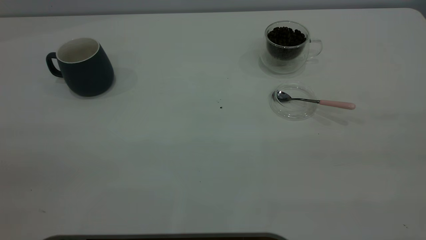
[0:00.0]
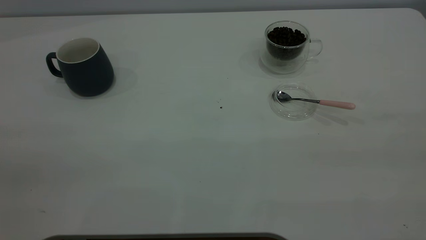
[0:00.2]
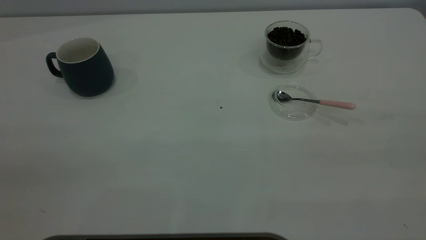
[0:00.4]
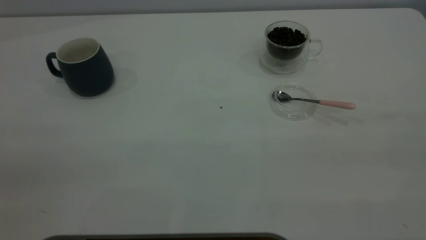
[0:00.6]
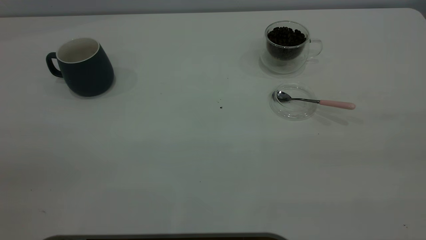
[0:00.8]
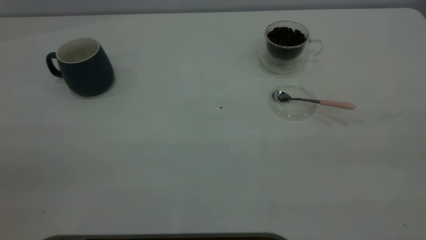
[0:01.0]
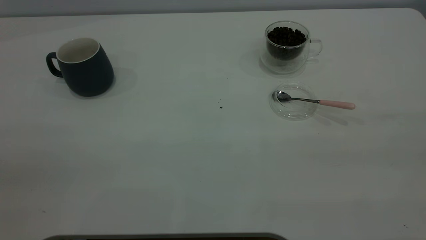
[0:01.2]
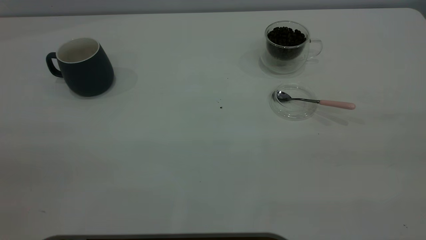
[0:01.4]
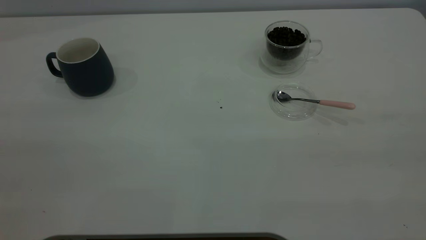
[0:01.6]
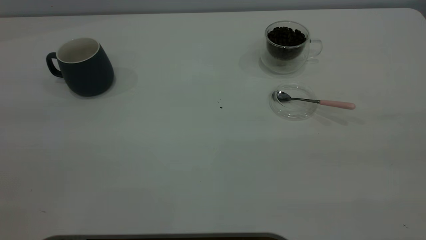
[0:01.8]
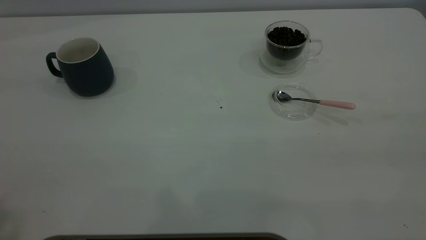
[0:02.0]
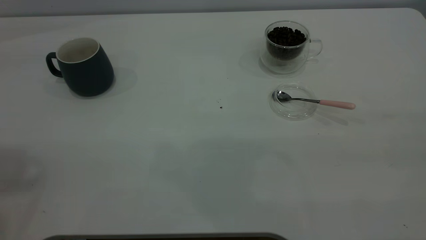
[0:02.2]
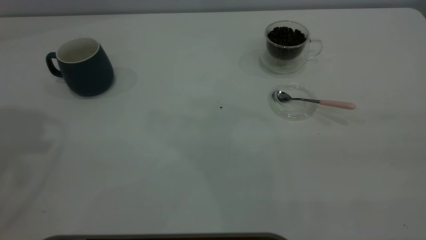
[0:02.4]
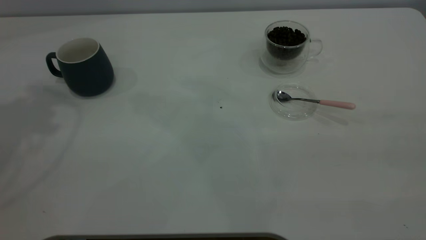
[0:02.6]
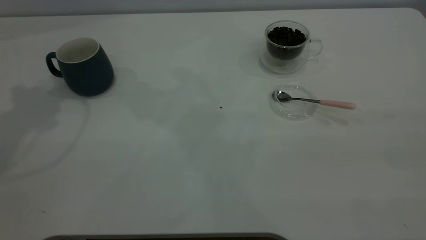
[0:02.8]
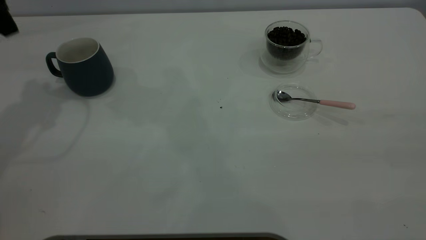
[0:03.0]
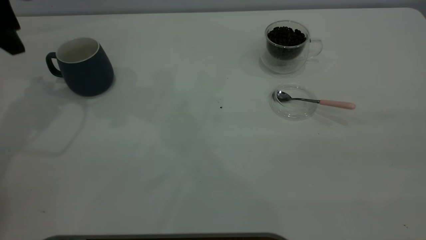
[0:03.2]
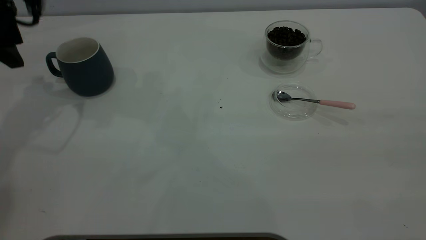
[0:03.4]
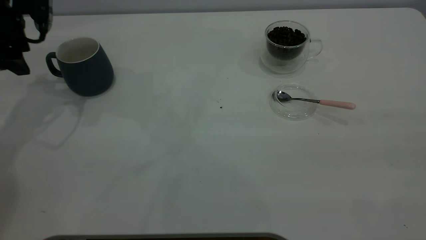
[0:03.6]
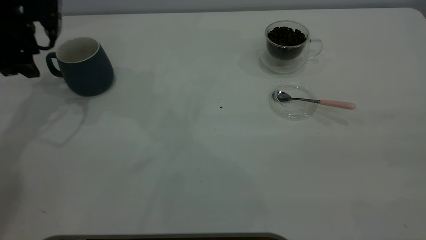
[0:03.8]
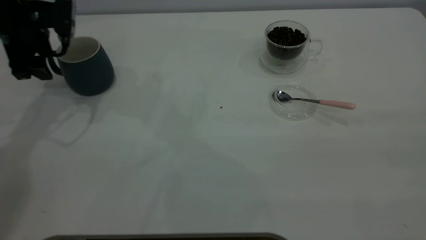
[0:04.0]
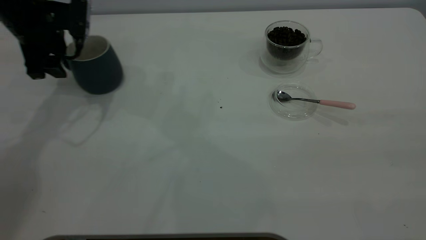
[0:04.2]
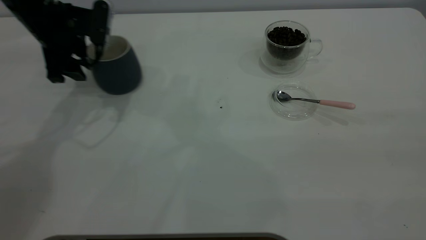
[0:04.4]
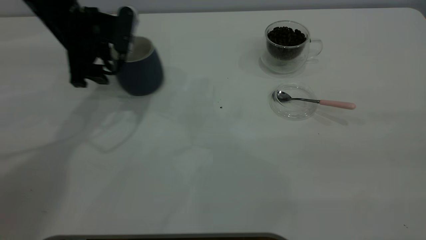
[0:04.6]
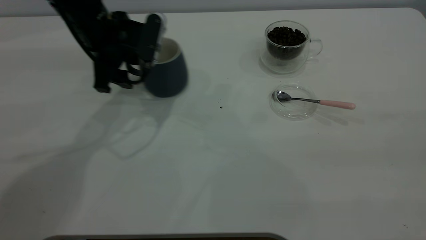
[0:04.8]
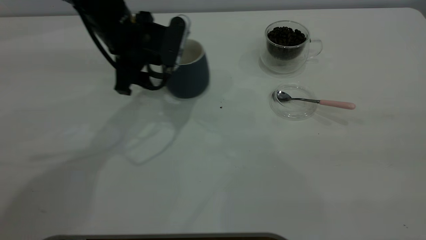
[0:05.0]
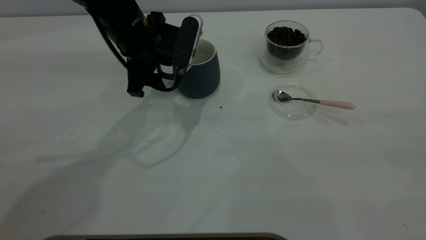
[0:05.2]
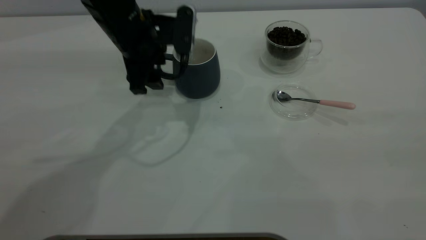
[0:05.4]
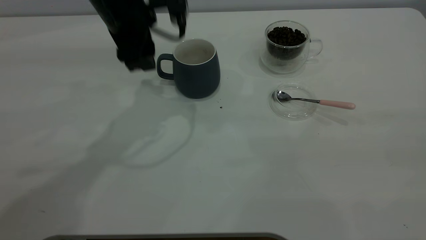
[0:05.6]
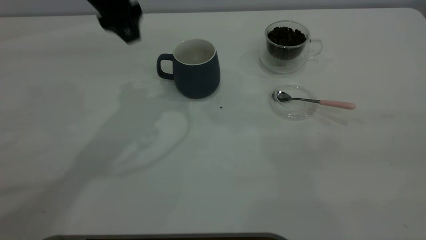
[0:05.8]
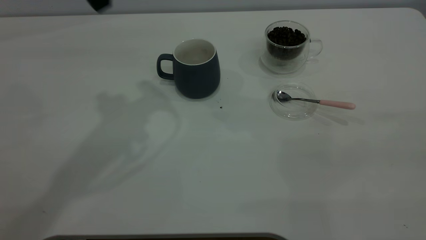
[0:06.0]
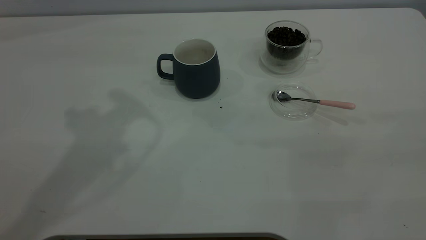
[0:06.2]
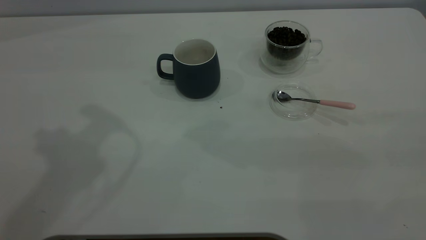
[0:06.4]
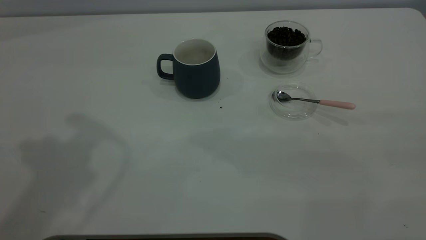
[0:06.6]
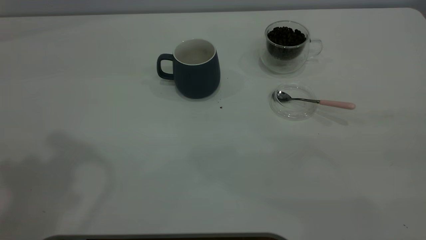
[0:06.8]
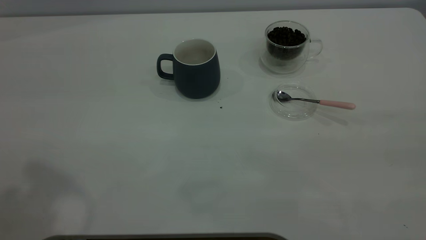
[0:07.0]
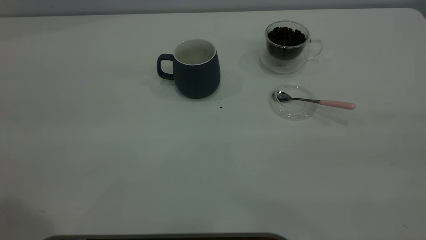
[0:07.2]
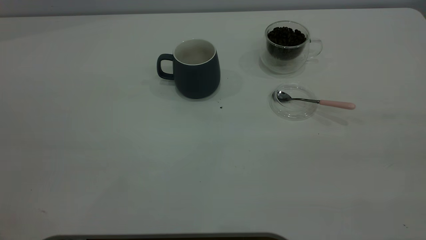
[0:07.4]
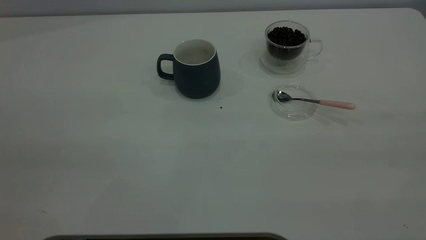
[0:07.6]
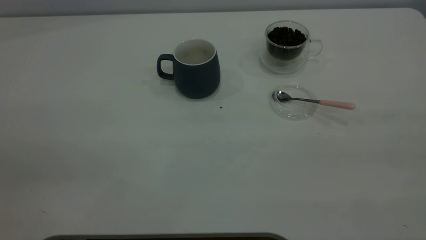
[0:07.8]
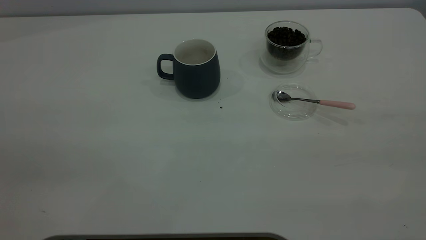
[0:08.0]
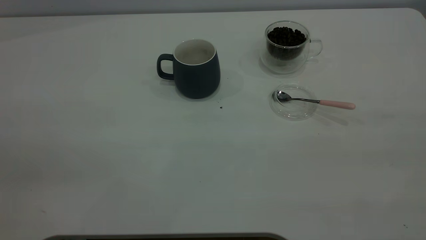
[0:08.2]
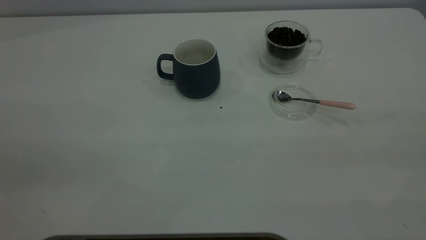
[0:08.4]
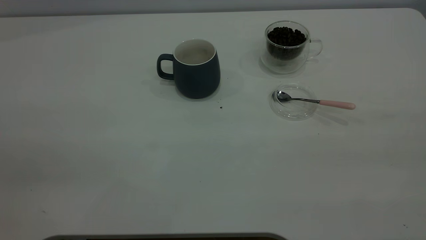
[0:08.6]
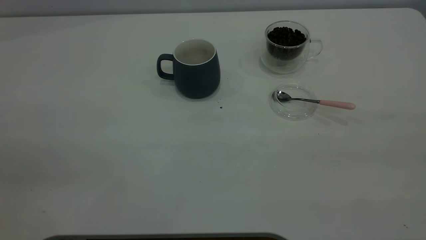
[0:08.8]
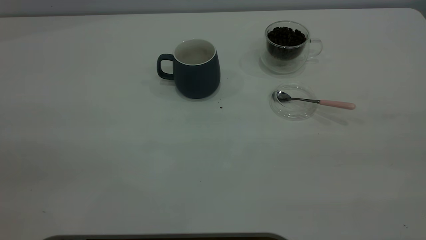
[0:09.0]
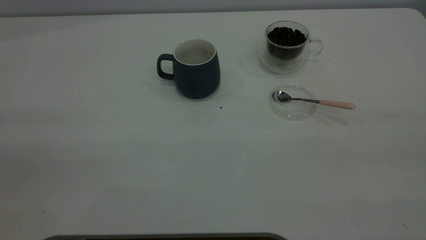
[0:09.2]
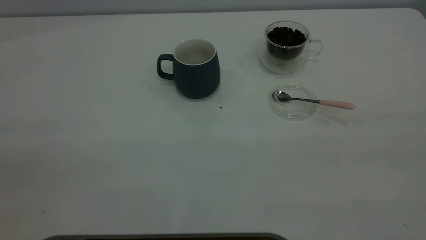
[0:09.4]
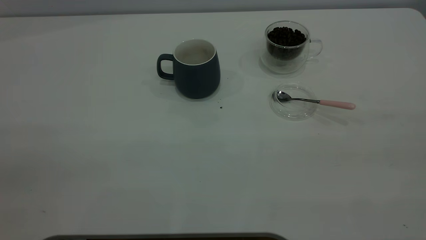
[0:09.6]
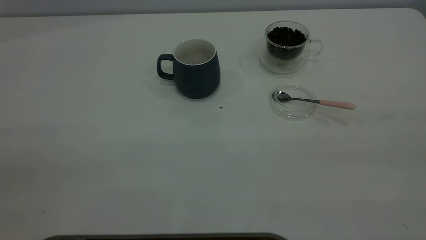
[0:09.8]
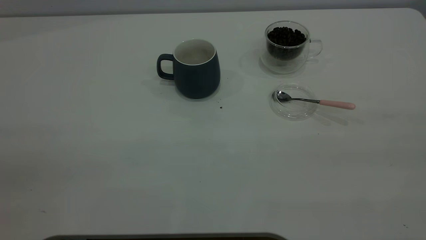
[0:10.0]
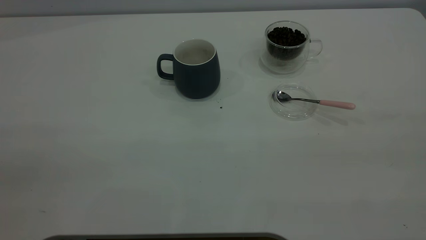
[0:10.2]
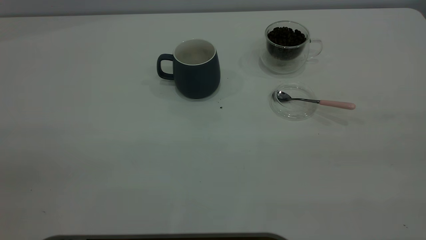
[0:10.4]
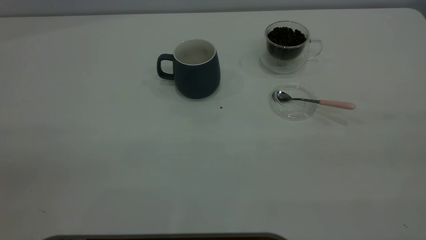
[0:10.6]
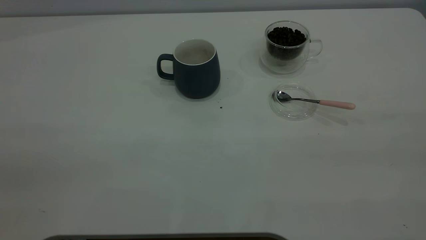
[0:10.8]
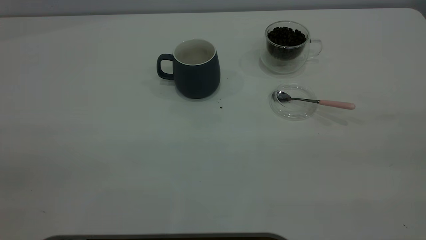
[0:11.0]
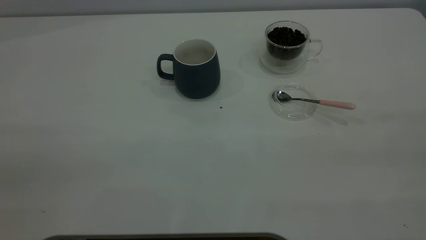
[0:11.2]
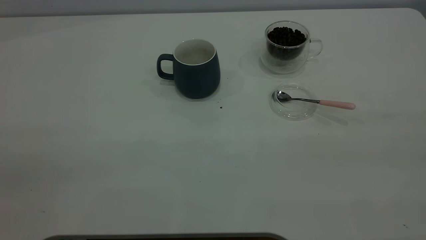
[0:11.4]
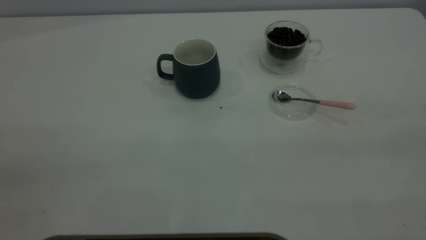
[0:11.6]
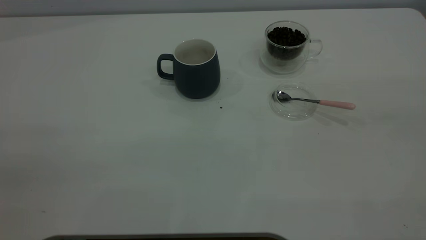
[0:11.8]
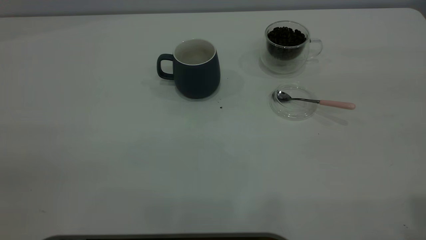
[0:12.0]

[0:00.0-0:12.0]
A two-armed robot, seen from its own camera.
Task of the whole recording: the left gripper place the grey cup in the center of the table, the right gripper take the pink spoon from the cup lid and scoop out the coffee beans from the coffee cup and put them into the grey cup, the right gripper put the spoon back into the cup lid.
Step, 0:00.0 to 0:05.4: Move the cup to the center of view.
0:03.0 to 0:04.4: The left gripper heads downward and to the right, covering roughly 15 cm.
0:04.4 to 0:06.0: The left gripper moves upward, to the right and backward, some 20 cm.

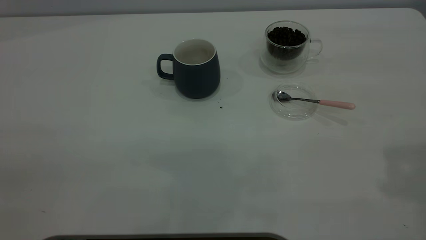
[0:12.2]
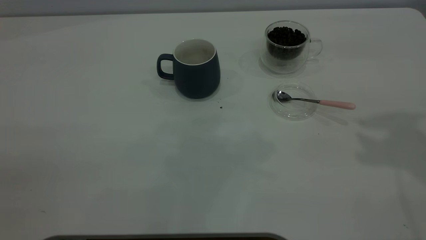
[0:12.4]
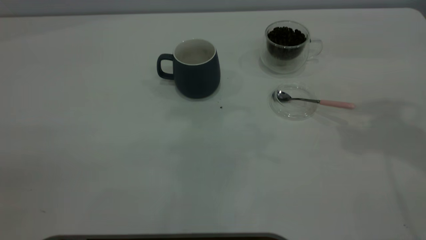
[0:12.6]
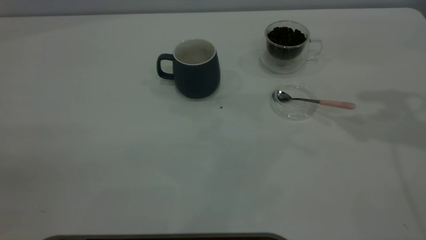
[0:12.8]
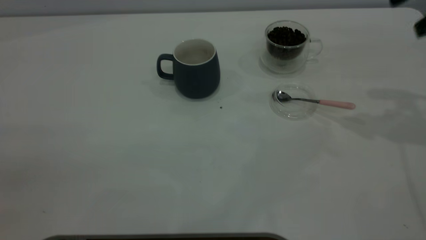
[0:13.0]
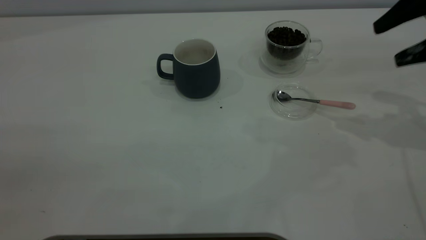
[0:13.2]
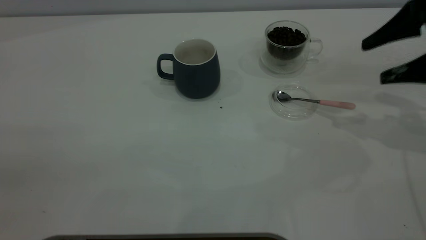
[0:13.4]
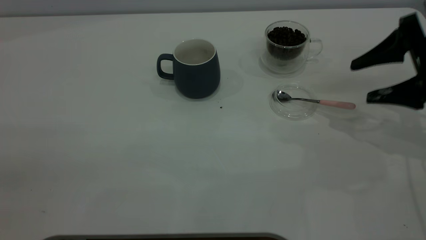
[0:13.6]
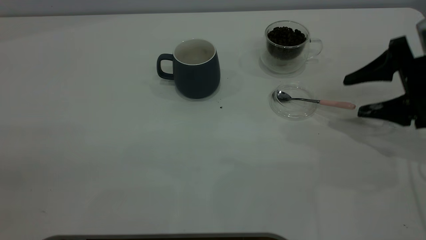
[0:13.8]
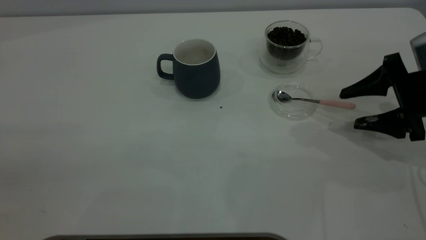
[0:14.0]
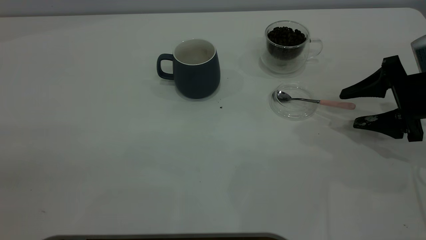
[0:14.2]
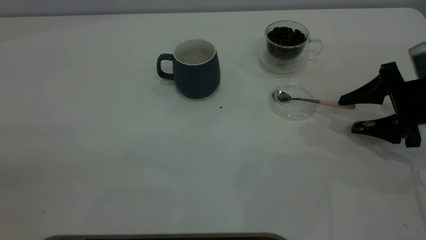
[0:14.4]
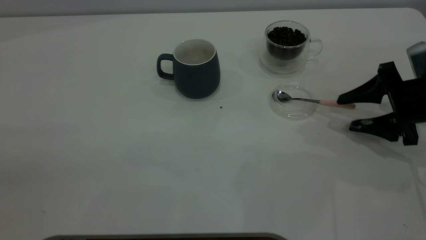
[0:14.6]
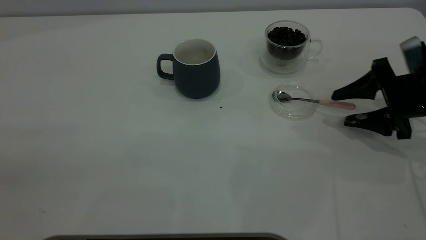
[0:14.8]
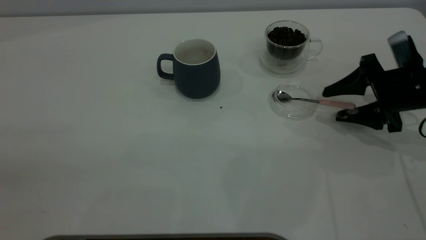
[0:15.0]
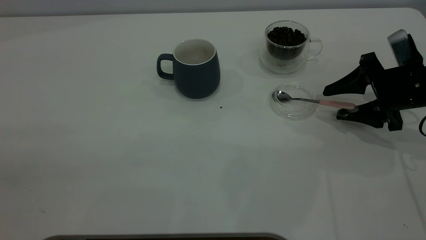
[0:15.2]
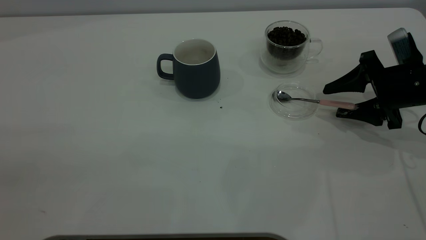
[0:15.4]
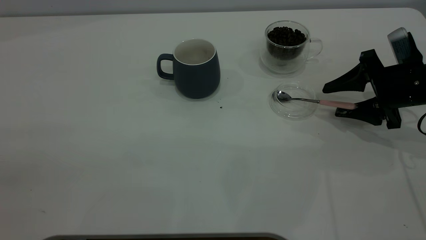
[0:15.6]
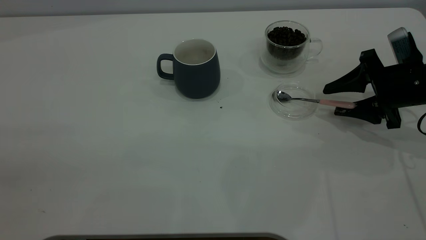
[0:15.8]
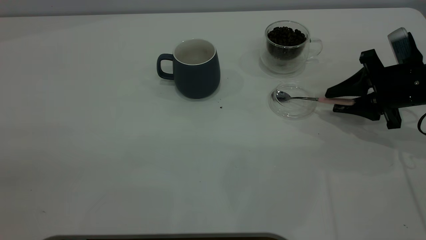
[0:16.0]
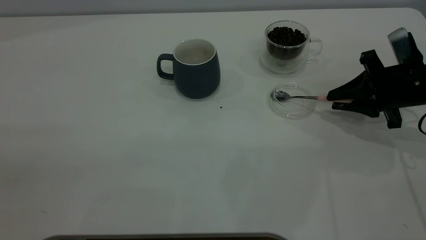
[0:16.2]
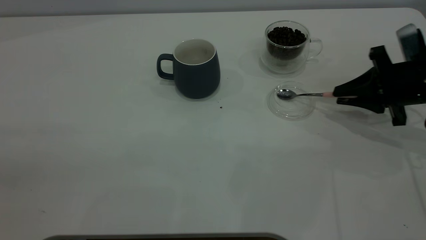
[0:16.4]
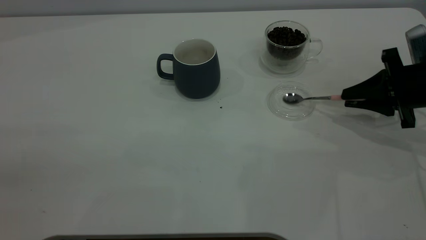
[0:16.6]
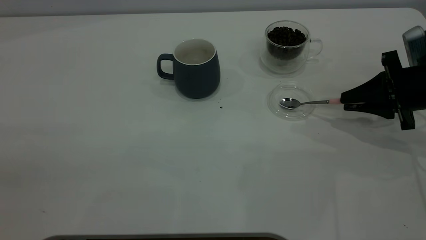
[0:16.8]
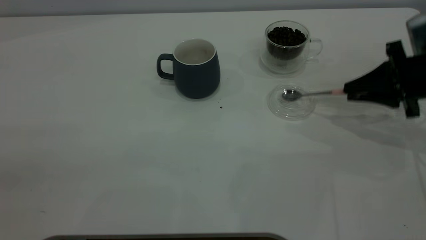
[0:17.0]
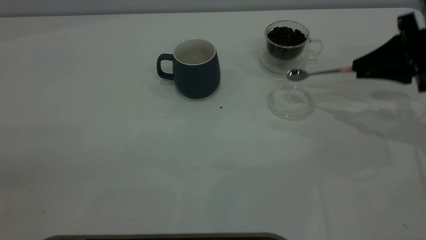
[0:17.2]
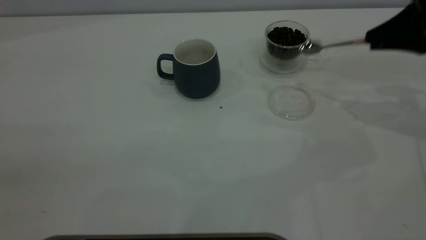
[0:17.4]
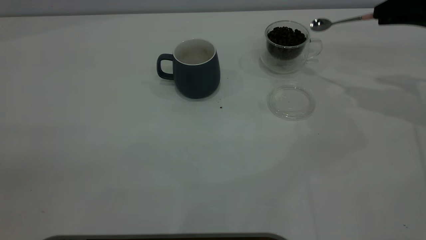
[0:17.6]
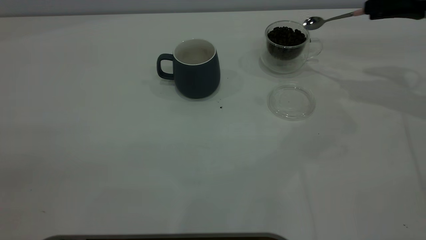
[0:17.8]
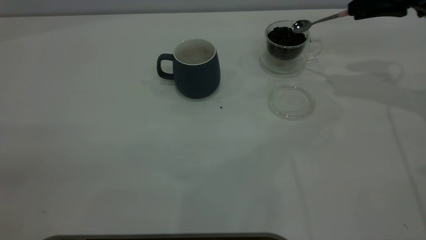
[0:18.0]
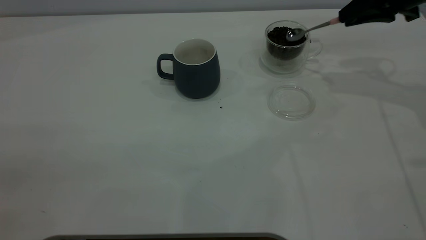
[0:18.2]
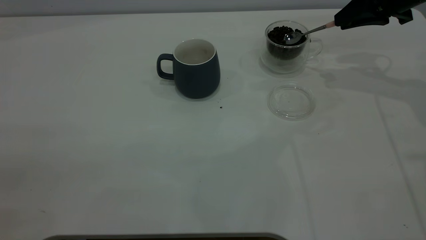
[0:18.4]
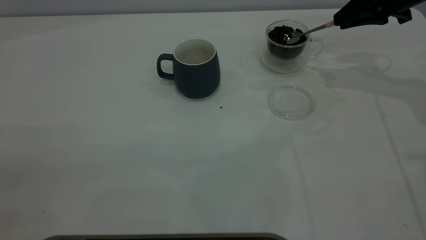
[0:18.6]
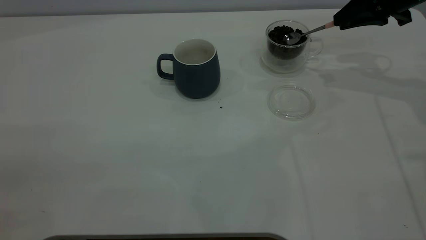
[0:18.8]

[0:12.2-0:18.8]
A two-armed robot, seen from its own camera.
Task of the whole recording: the left gripper place the grey cup in the center of the table, the right gripper take the pink spoon from the cup lid and scoop out the coffee beans from the coffee cup and put them into the grey cup, the right gripper put the spoon back into the cup lid.
Step, 0:12.2 to 0:17.0: Pick up the spoon.
0:12.2 to 0:13.8: The right gripper shifts roughly 35 cm downward.
0:13.8 to 0:15.4: The grippers move only a little.
0:15.4 to 0:17.2: The right gripper travels upward by some 10 cm, and closes its fingers.
0:17.2 to 0:18.8: The right gripper is displaced forward by some 10 cm.
